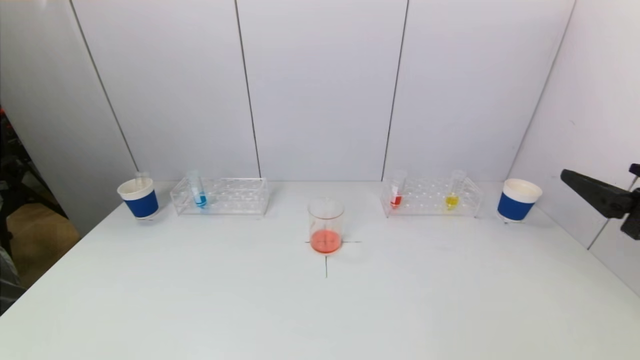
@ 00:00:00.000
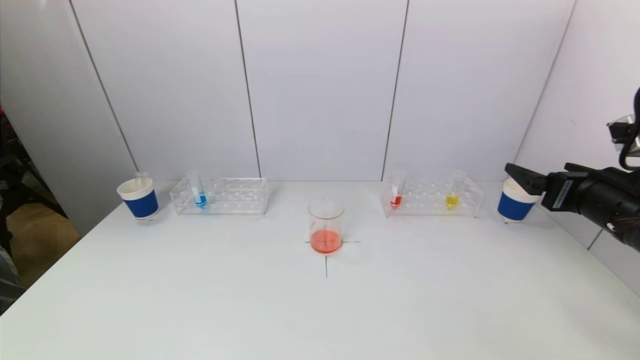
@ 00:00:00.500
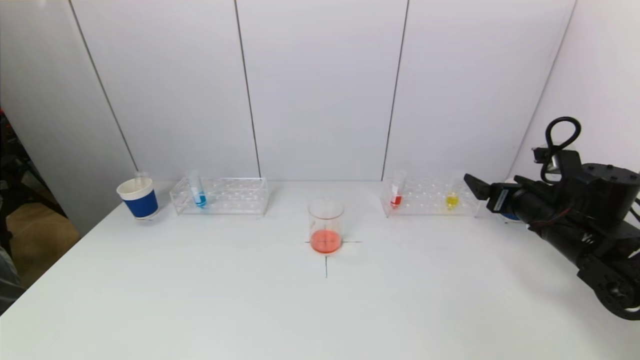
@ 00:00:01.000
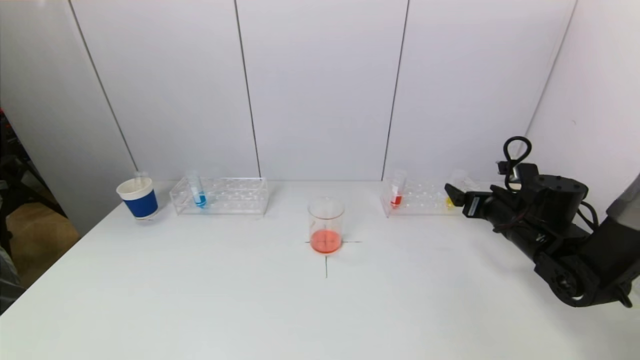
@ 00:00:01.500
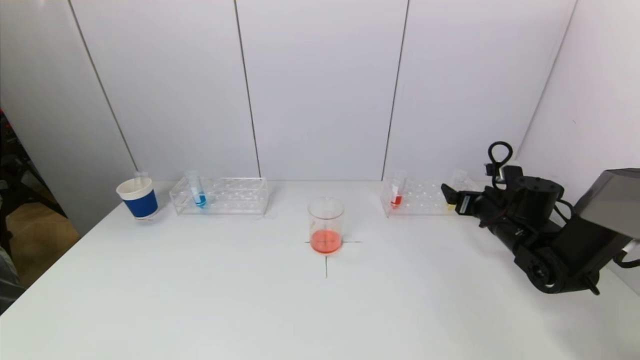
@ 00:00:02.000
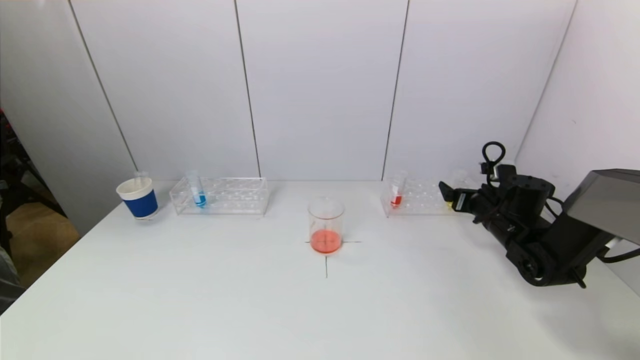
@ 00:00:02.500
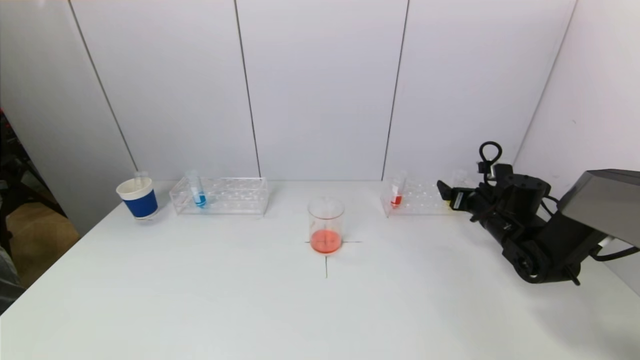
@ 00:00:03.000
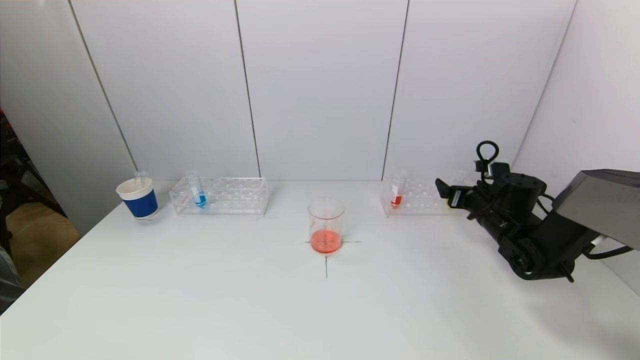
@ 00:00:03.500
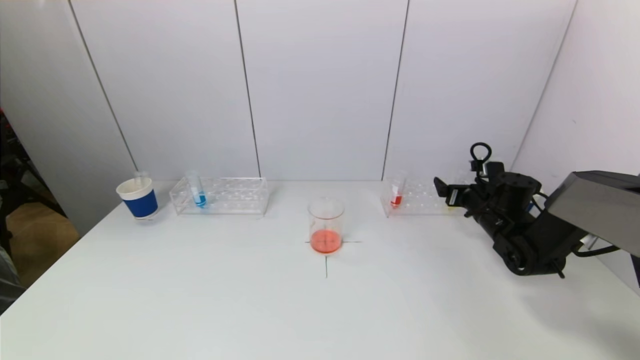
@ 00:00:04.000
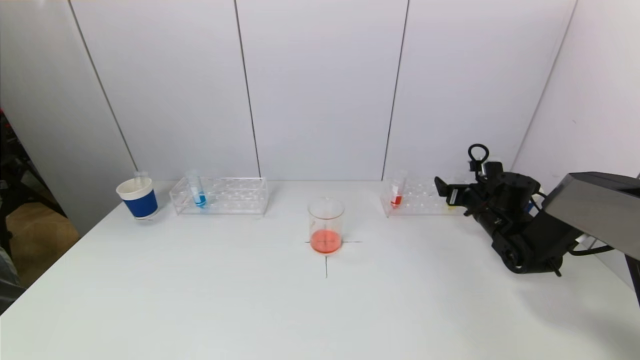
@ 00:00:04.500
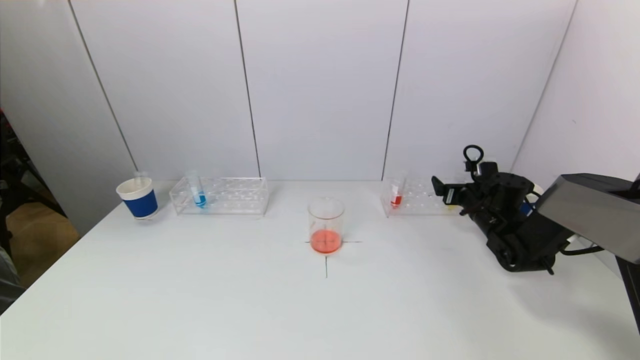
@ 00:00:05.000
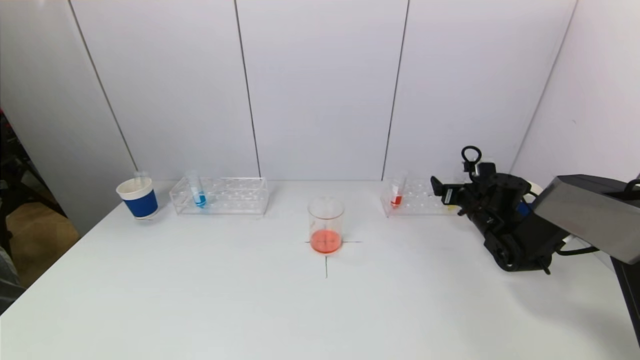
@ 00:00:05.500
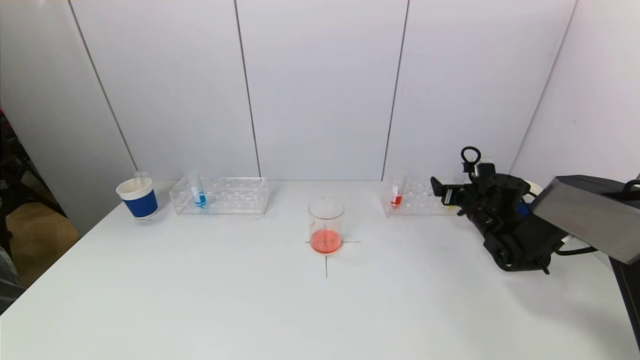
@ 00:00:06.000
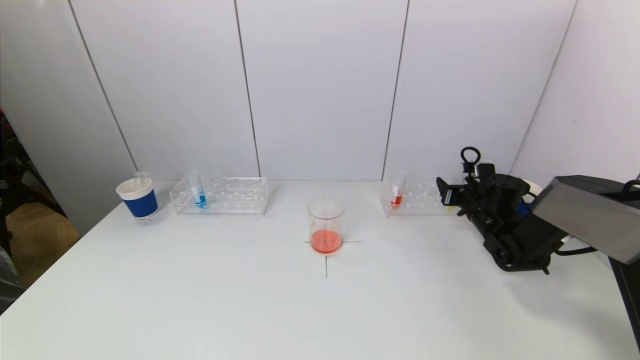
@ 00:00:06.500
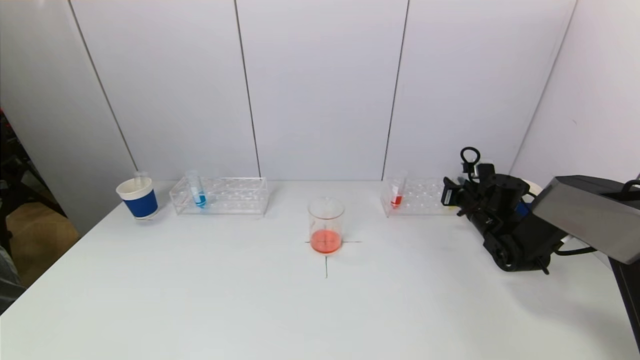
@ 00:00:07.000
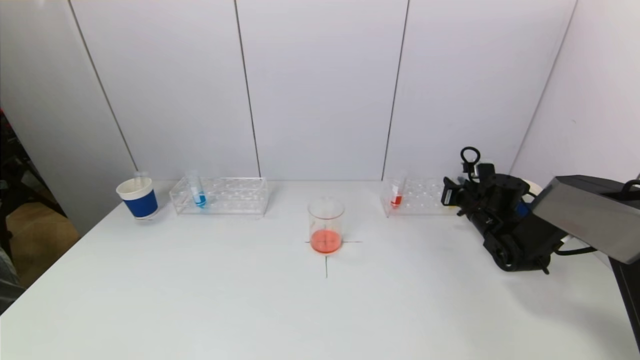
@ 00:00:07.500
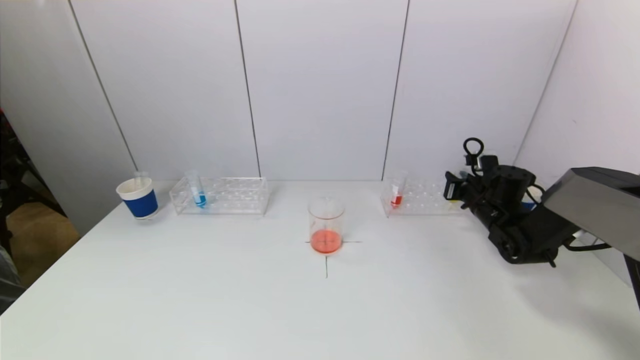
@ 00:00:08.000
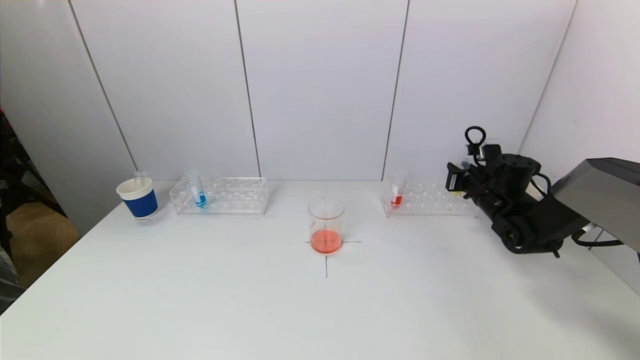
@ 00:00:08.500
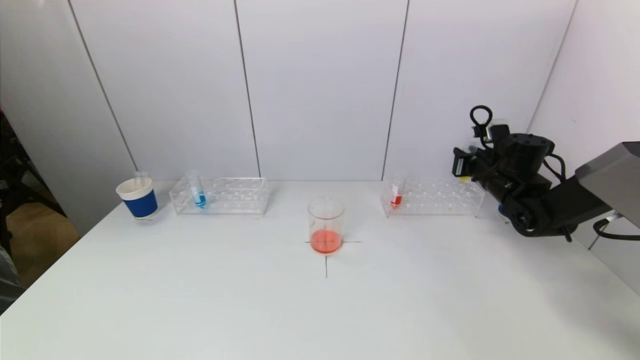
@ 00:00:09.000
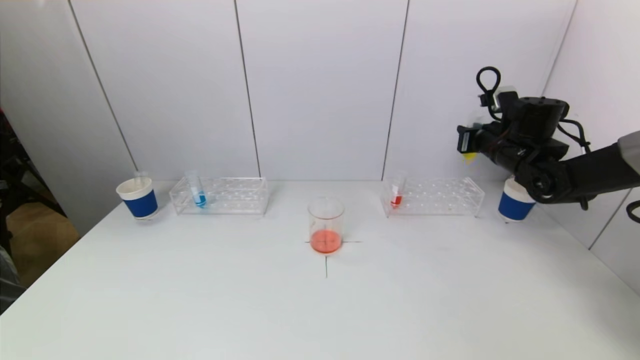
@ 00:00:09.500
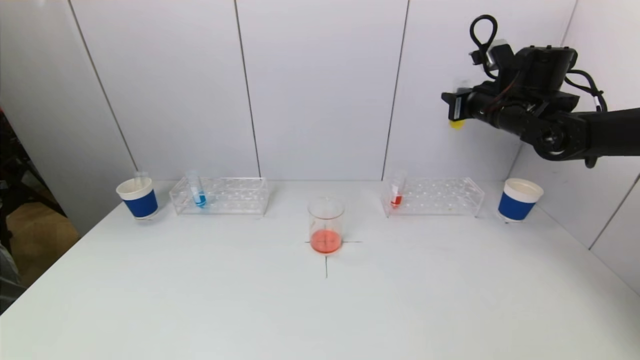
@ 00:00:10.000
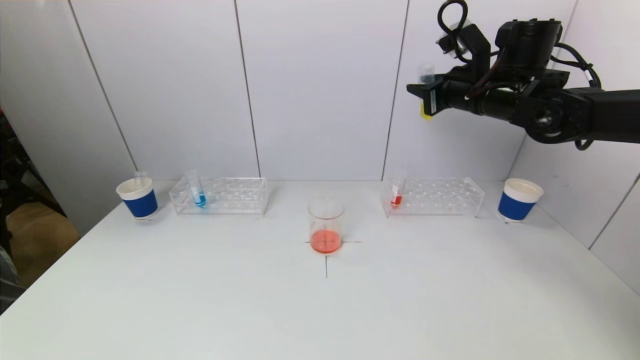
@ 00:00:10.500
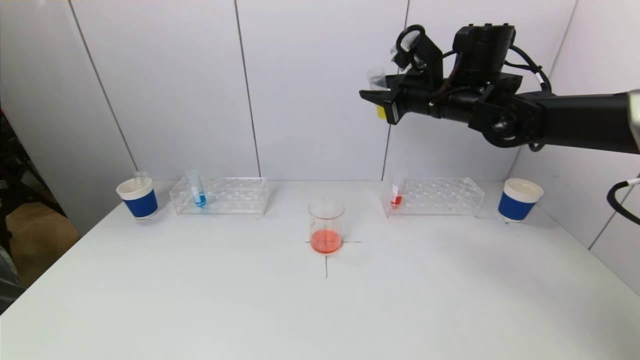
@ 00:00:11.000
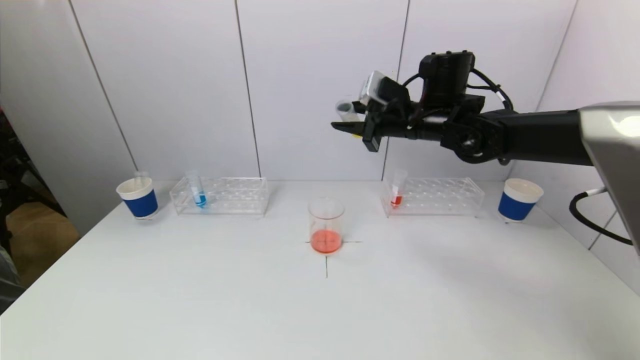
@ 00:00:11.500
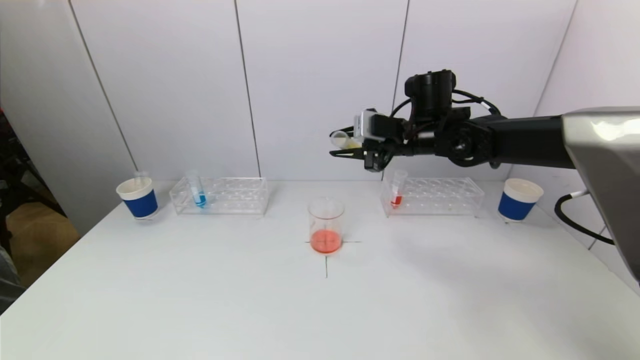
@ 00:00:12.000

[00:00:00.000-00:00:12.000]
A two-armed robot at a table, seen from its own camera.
Task of the whole recording: pick up a test tube with pigment on left test tube rack and a test tube with pigment on right test tube rack by grippers and pour them into the beaker.
Step, 00:00:00.000 to 00:00:07.000: Grasp the yellow reagent with the right gripper.
00:00:00.000 to 00:00:02.000: The right gripper heads forward and downward, covering approximately 25 cm.
00:00:02.000 to 00:00:04.000: The grippers move only a little.
00:00:04.000 to 00:00:06.000: There are only small adjustments of the grippers.
00:00:06.000 to 00:00:08.000: The right gripper closes its fingers.
00:00:08.000 to 00:00:10.000: The right gripper goes roughly 20 cm upward.
00:00:10.000 to 00:00:12.000: The right gripper heads to the left, covering about 15 cm.

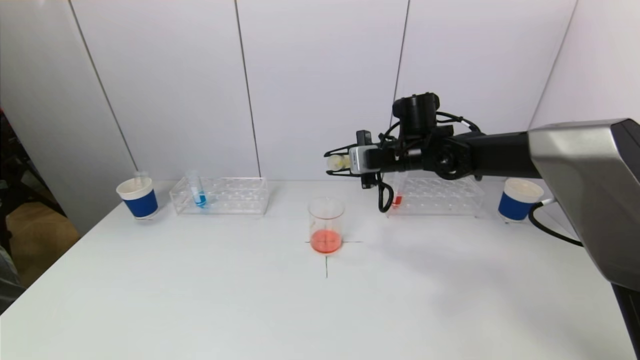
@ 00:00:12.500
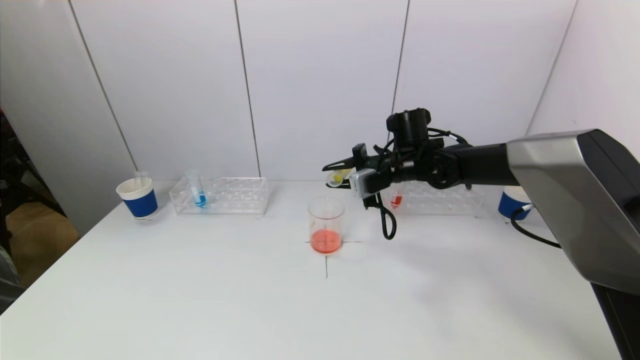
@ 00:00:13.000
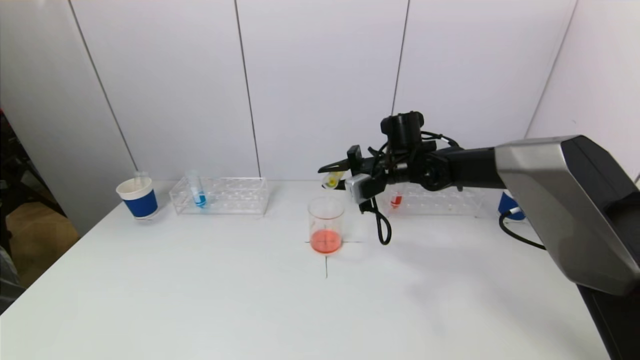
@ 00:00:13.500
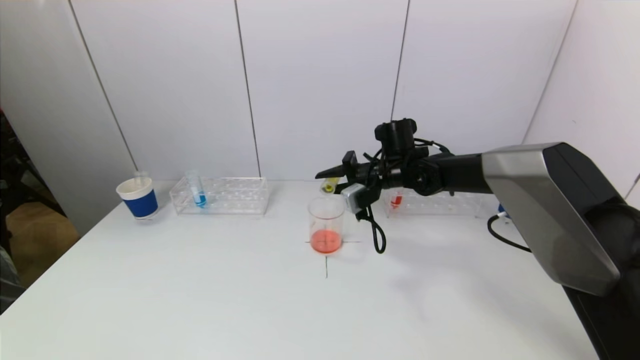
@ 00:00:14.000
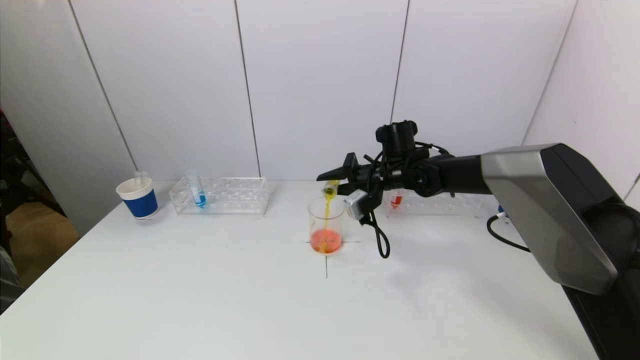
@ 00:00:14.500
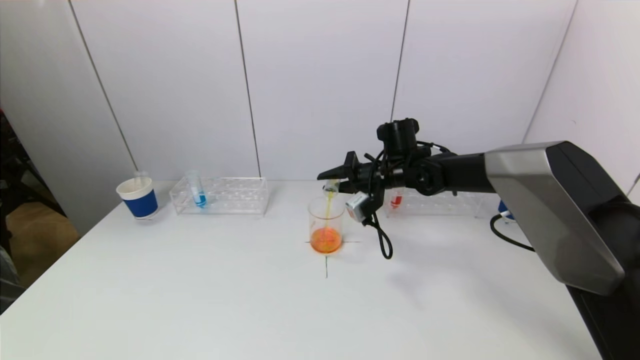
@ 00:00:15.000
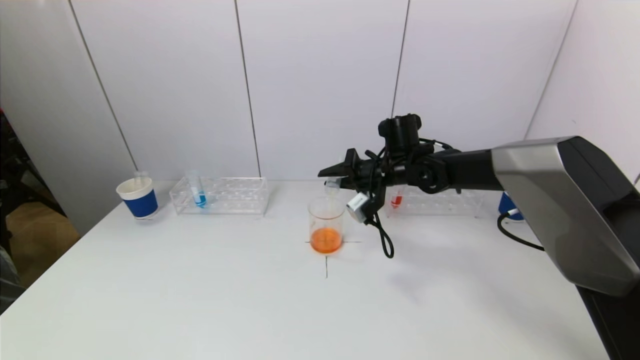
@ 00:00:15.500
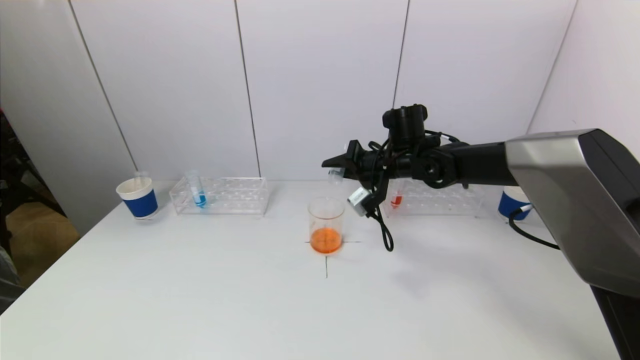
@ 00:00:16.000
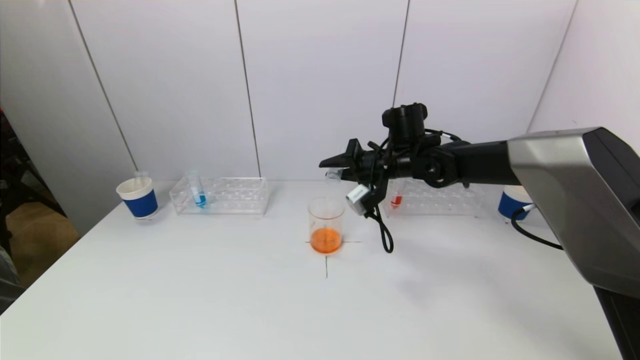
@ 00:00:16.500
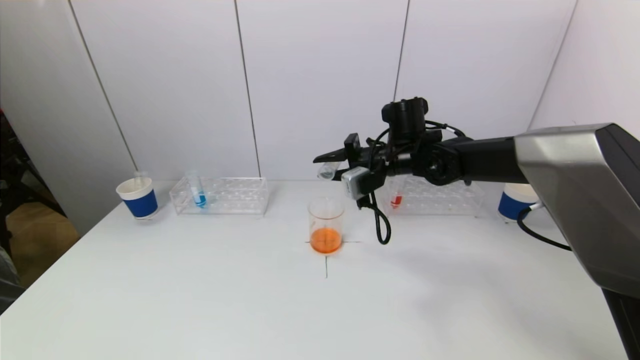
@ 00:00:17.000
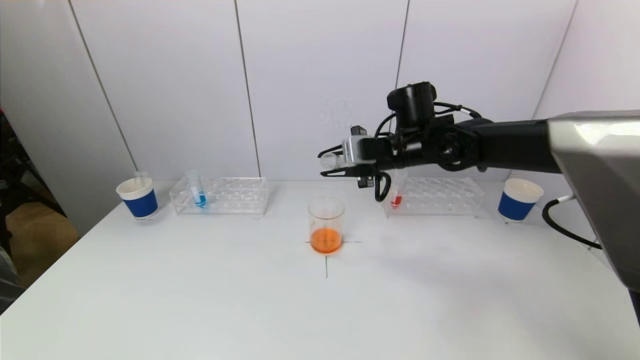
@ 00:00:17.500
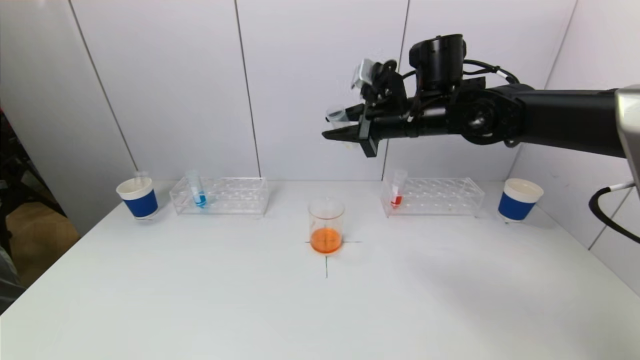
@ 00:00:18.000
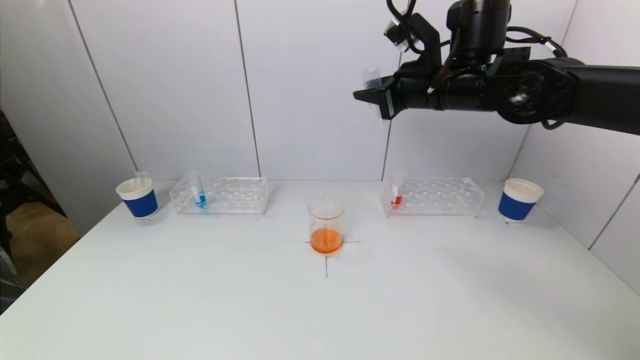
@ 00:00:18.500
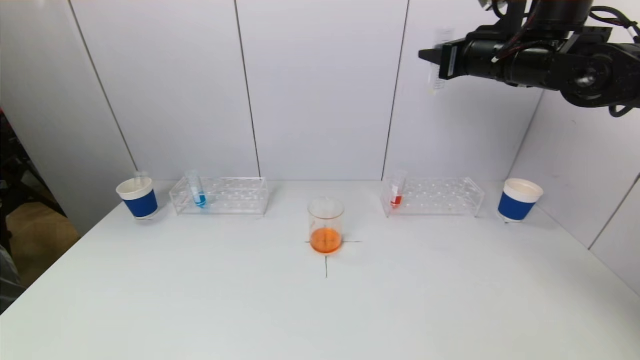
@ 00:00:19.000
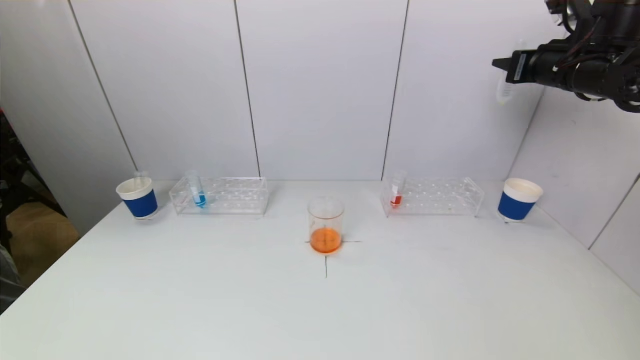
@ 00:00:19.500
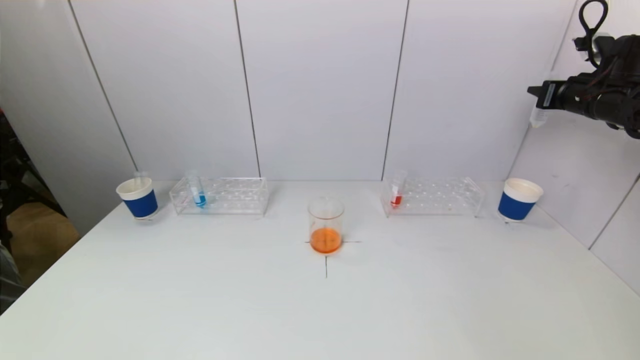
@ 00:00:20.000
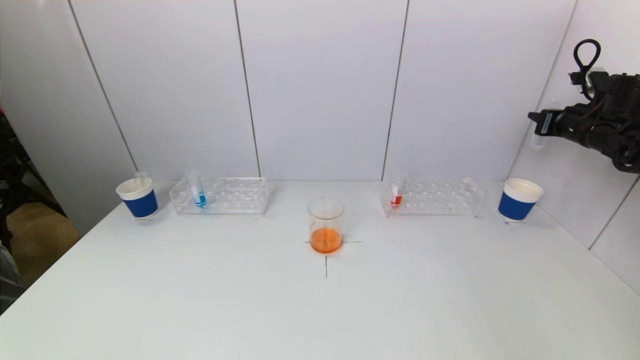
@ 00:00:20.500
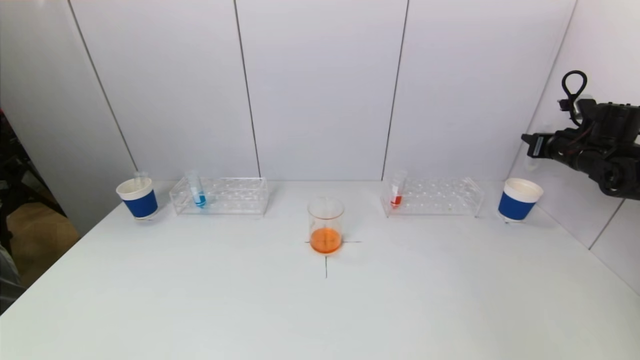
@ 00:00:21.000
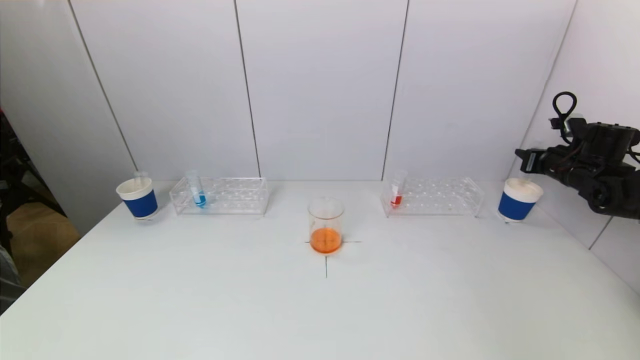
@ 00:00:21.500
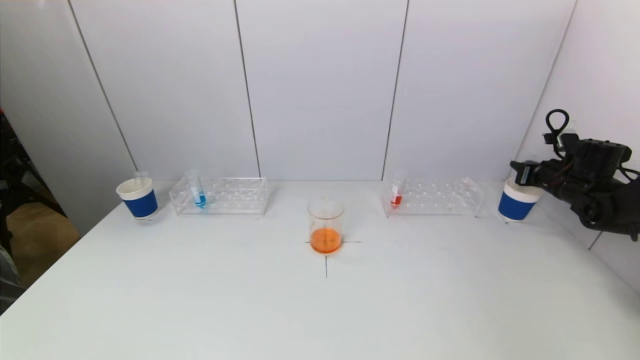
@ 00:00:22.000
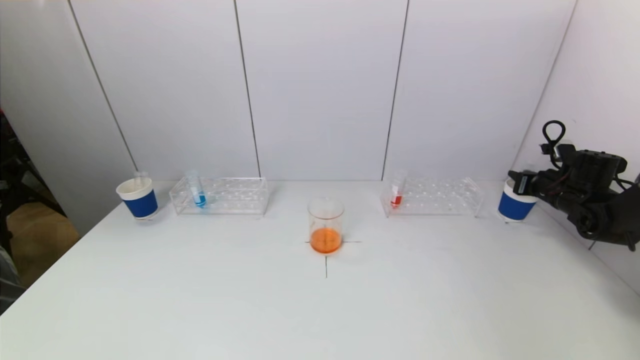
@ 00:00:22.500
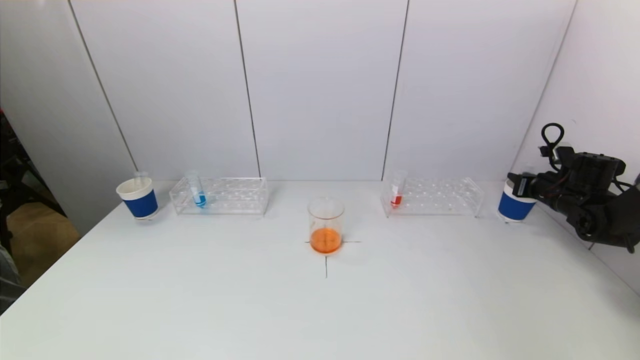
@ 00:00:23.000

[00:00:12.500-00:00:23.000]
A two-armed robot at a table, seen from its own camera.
Task of the whole recording: pick up a test tube with pigment on left test tube rack and a test tube with pigment on right test tube rack by grippers and pour them into the beaker.
Step, 00:00:12.500 to 00:00:15.500: Pour the yellow reagent into the graduated cylinder with the right gripper.
00:00:12.500 to 00:00:14.500: The right gripper moves downward, some 5 cm.
00:00:16.500 to 00:00:19.000: The right gripper travels upward and to the right by some 20 cm.
00:00:19.000 to 00:00:21.000: The right gripper moves to the right and downward, approximately 25 cm.
00:00:21.000 to 00:00:23.000: The right gripper goes about 10 cm downward.
